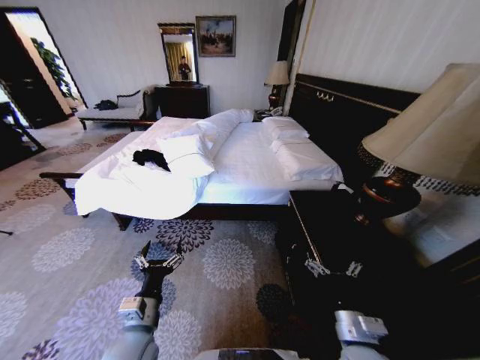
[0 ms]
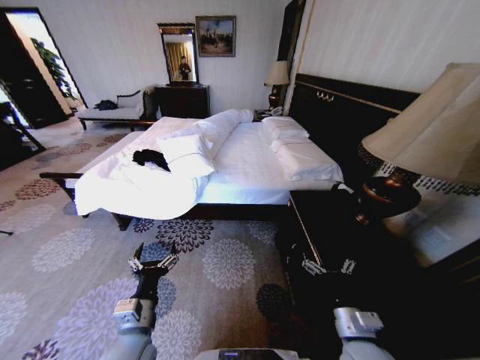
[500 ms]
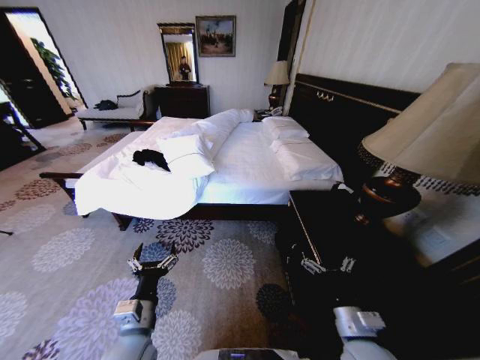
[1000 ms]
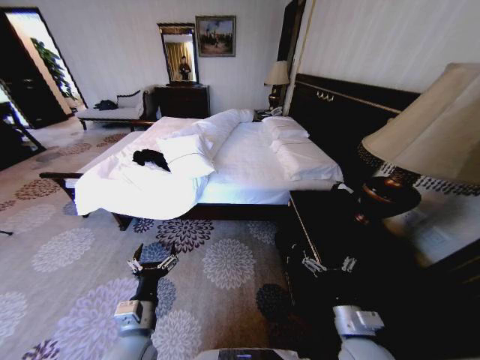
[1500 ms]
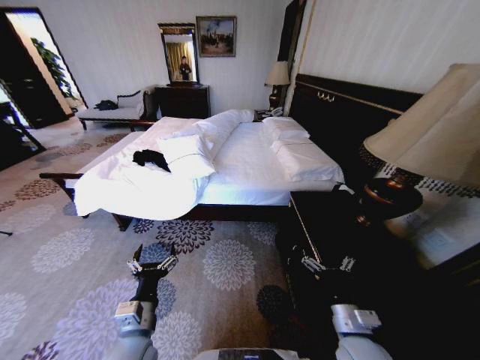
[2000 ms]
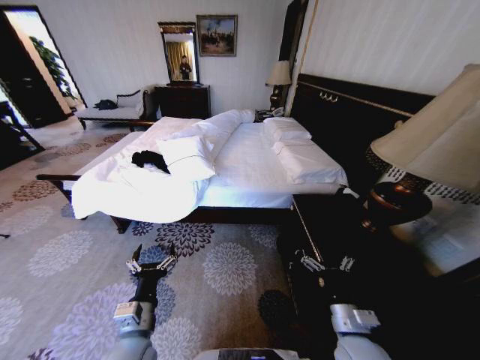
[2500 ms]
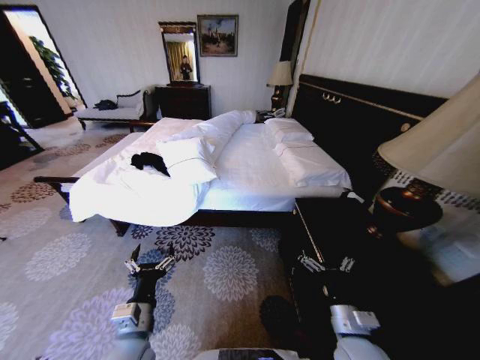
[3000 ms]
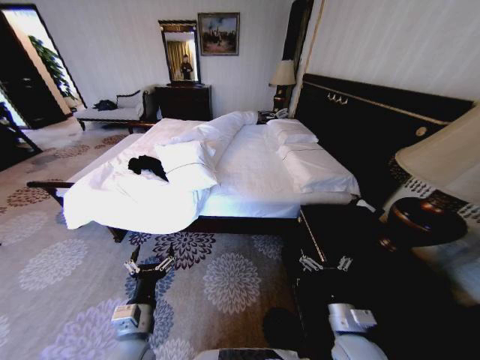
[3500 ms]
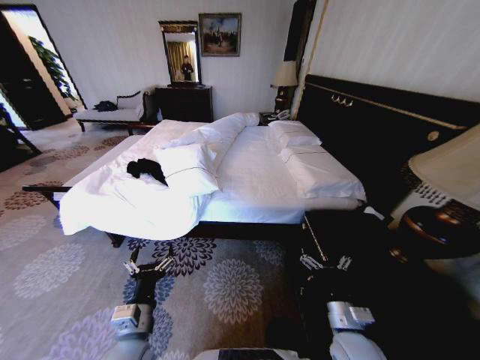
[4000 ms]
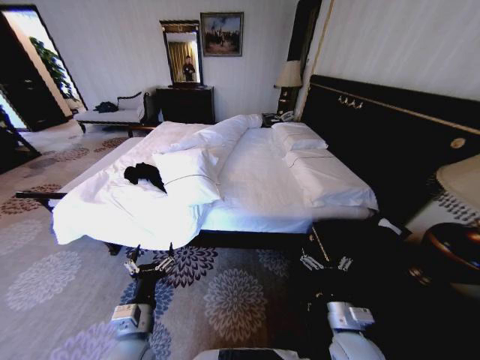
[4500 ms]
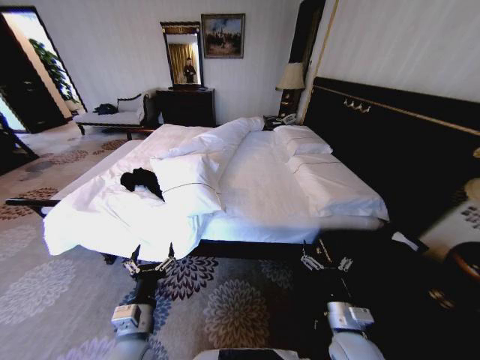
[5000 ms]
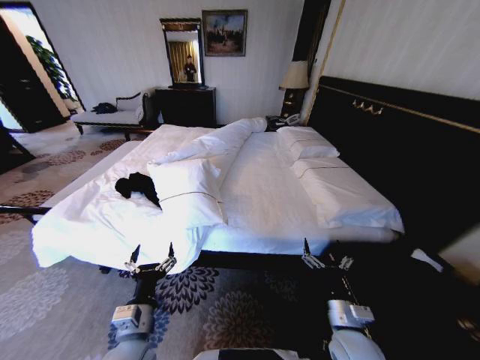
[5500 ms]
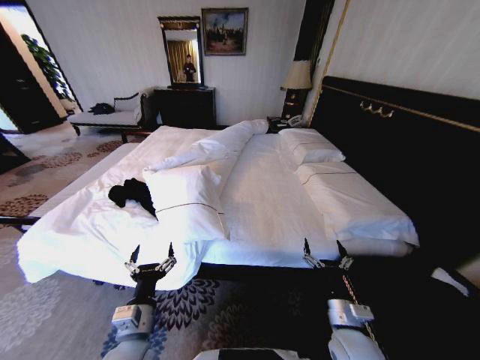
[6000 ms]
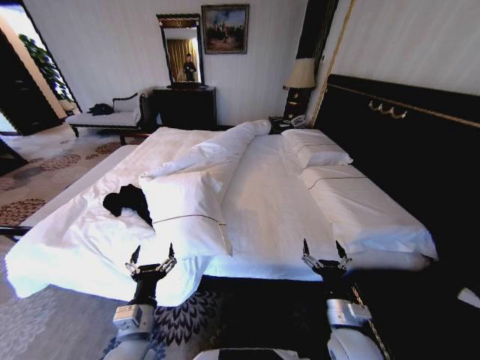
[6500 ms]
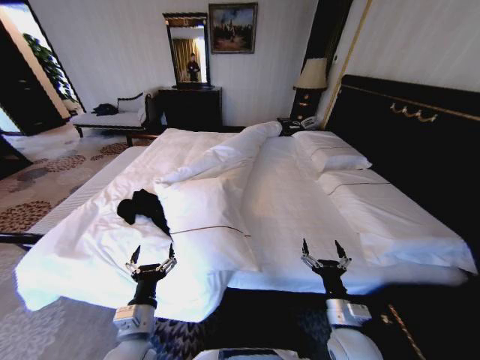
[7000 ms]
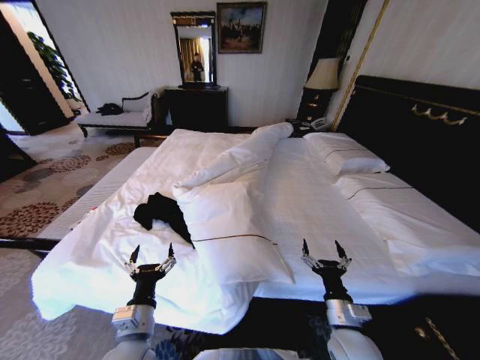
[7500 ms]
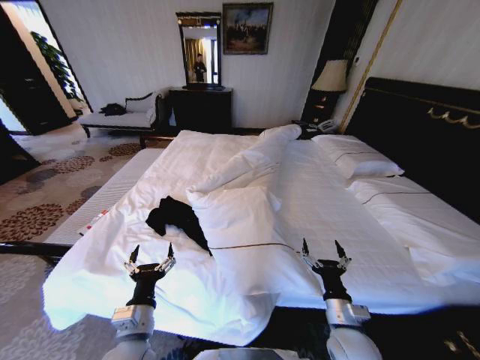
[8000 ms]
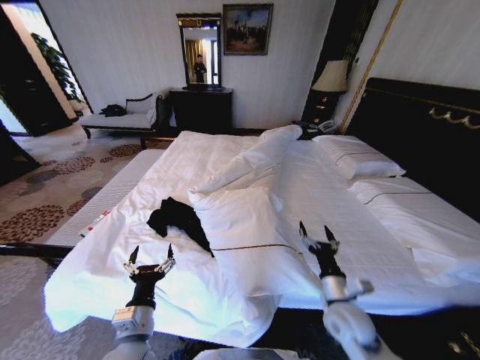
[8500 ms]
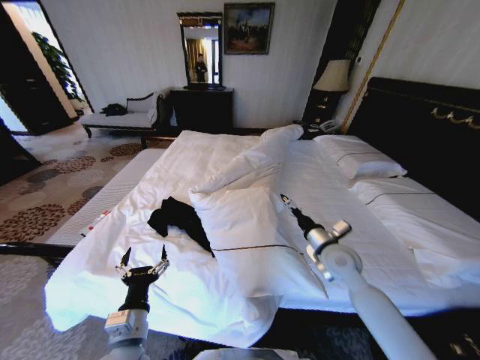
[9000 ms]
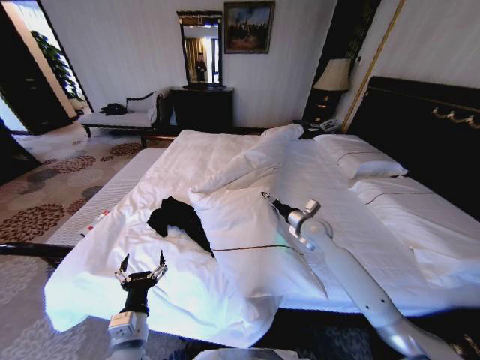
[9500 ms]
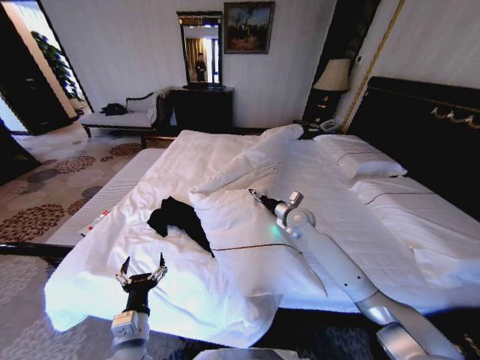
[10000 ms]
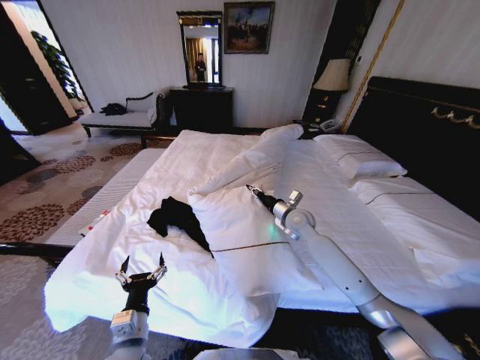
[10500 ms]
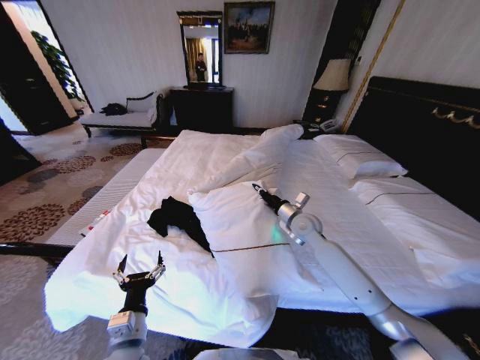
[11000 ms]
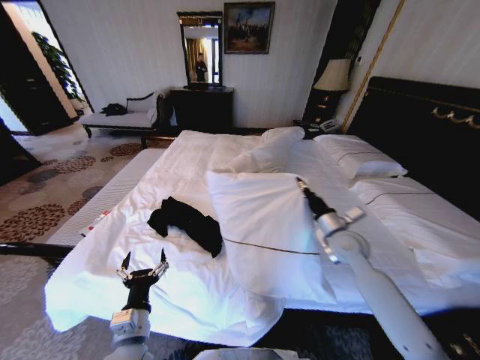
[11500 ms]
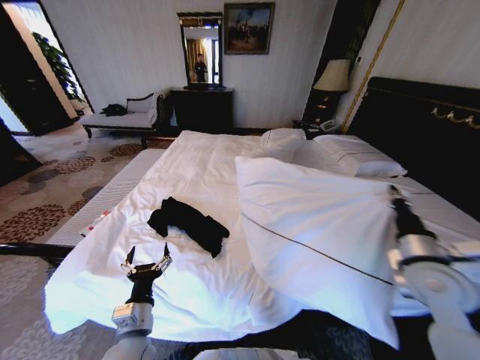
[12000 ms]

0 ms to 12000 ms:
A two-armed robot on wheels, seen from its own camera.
Task of the whole recording: Fold the clothes on the bed.
8000 ms to 10000 ms: The right gripper travels forward by some 30 cm.
10000 ms to 12000 ms: The right gripper travels backward and to the right by some 30 cm, and closes.

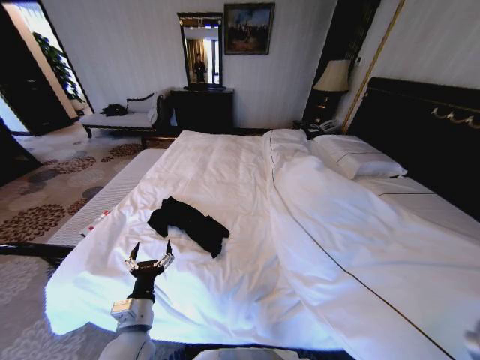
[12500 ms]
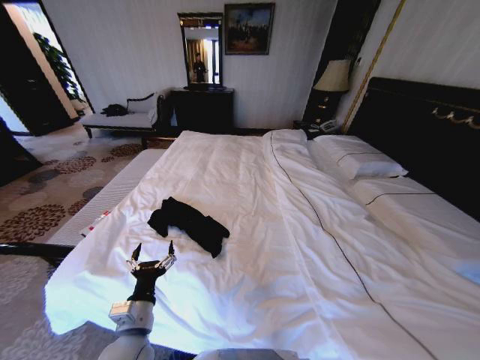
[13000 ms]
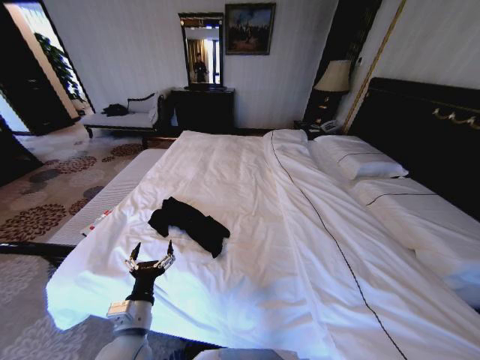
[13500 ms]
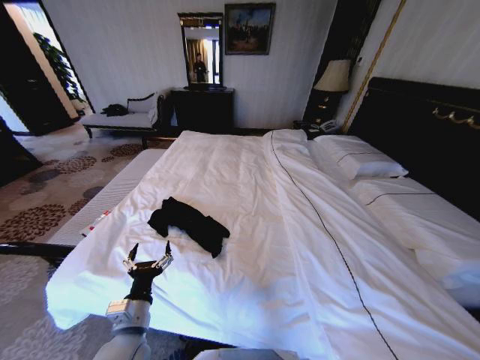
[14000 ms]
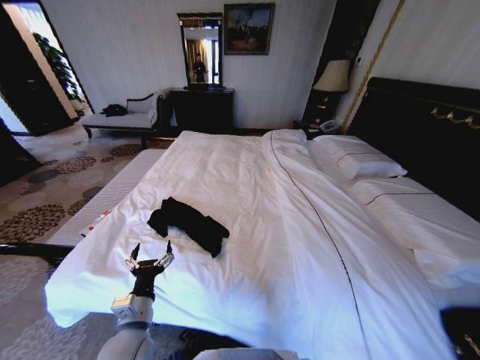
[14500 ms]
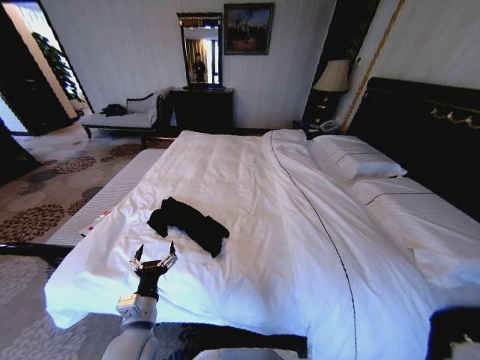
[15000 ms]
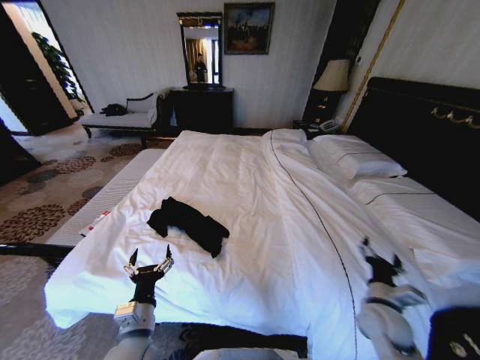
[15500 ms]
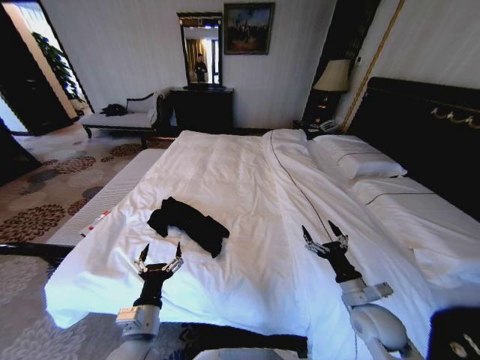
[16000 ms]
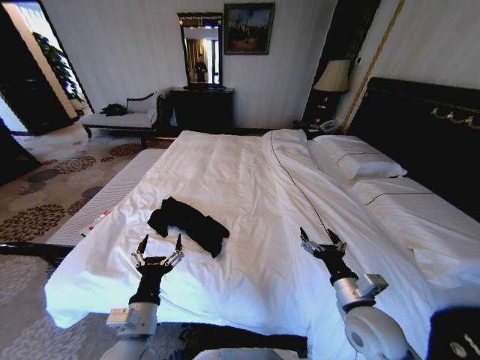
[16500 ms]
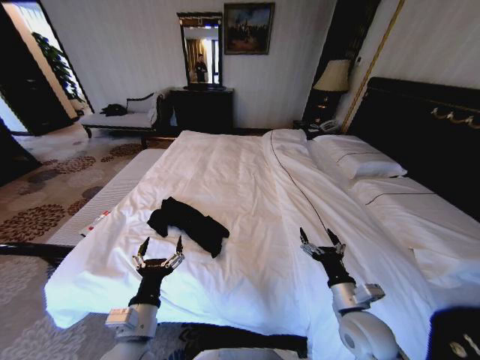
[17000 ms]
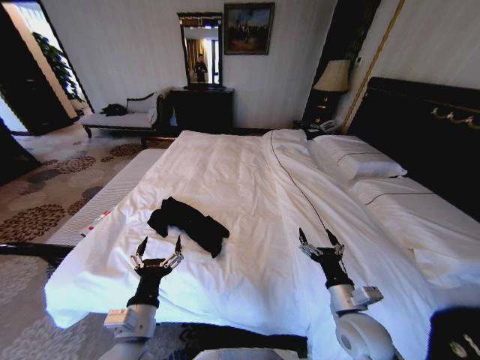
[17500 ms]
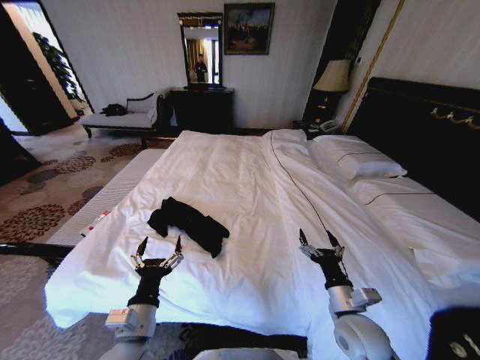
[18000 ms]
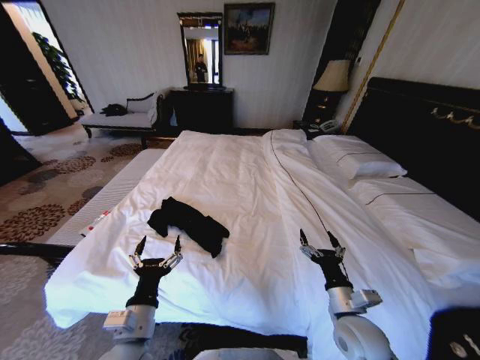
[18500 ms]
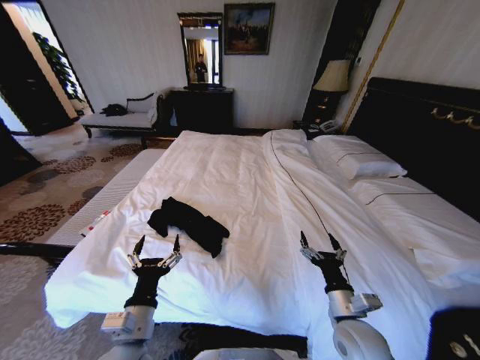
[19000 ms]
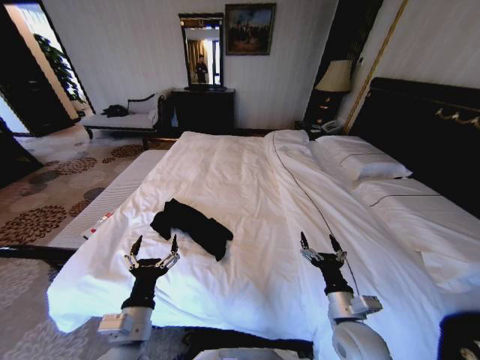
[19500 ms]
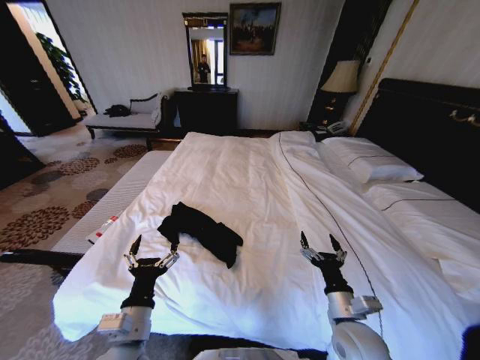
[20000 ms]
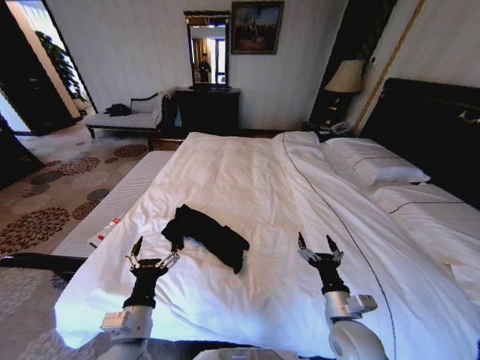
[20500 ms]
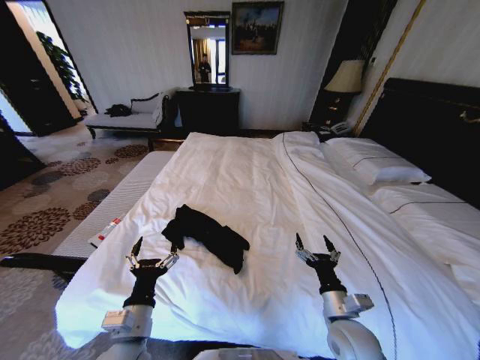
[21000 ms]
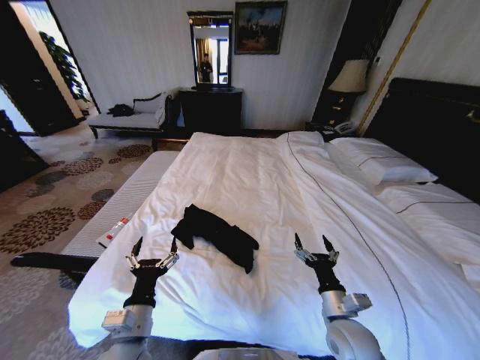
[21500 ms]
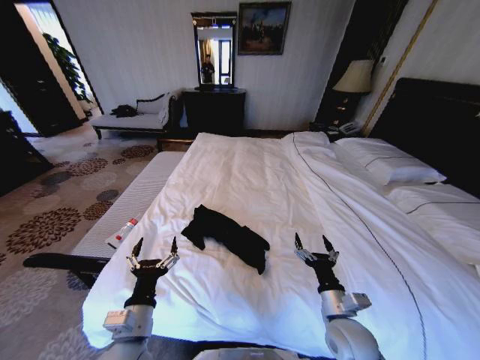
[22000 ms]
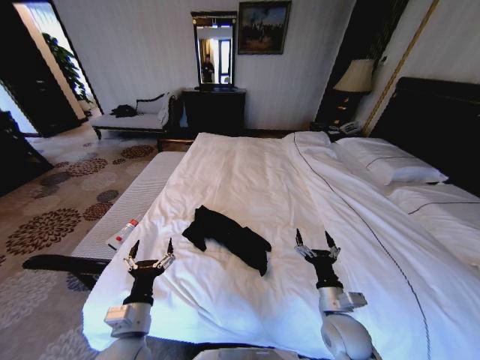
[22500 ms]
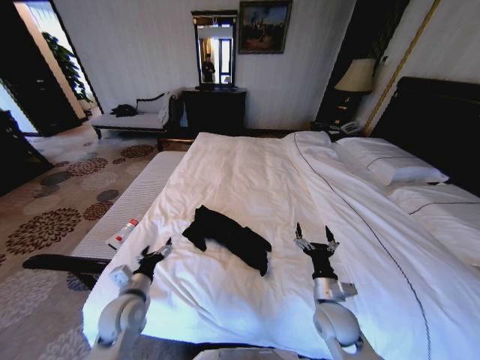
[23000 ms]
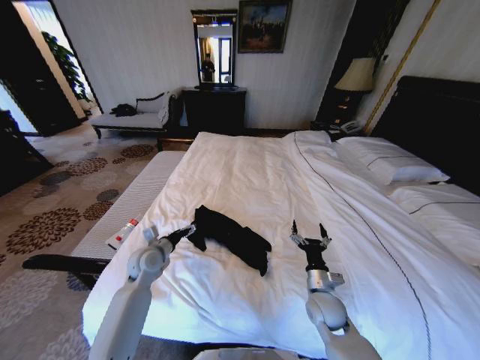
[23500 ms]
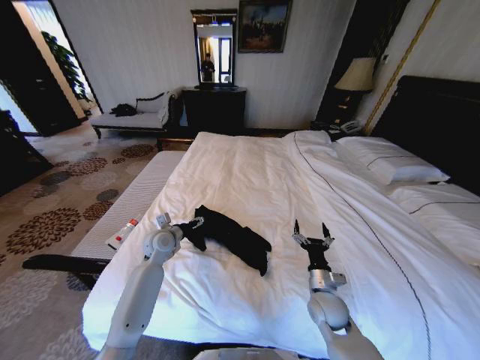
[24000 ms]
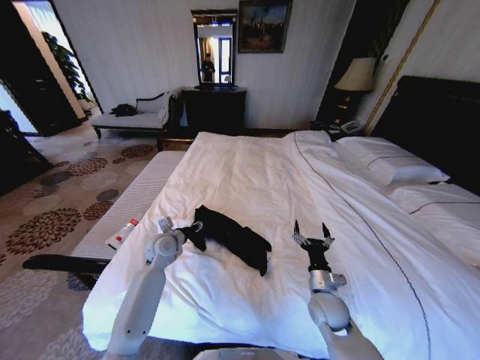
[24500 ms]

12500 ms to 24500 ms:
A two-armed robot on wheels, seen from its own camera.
Task of the whole recording: Fold the clothes on the bed.
12500 ms to 14500 ms: The right gripper is displaced downward and to the right by approximately 15 cm, and opens.
14500 ms to 16500 ms: The right gripper travels to the left and forward by some 25 cm.
16500 ms to 18500 ms: The grippers make only small movements.
22500 ms to 24500 ms: The left gripper heads forward, covering approximately 25 cm, and closes; the right gripper is displaced forward by roughly 5 cm.

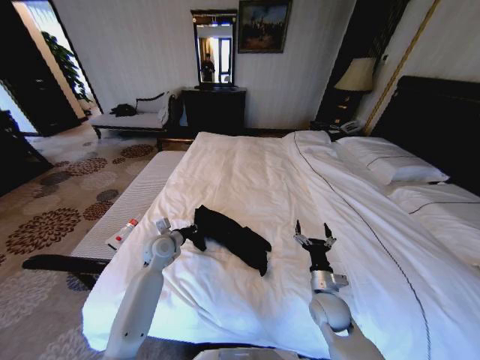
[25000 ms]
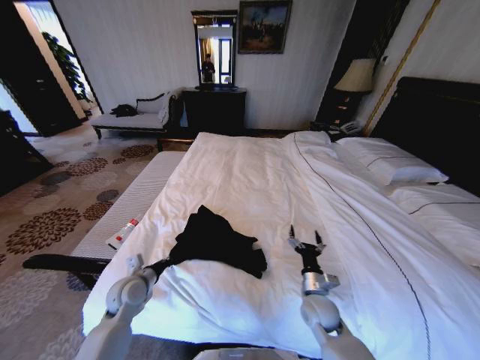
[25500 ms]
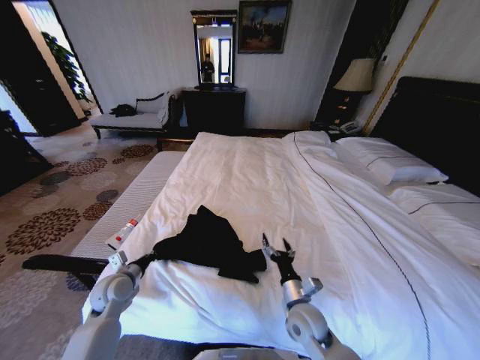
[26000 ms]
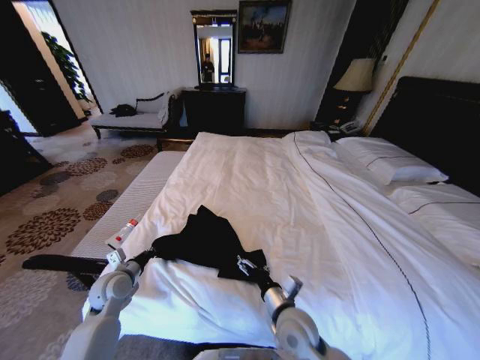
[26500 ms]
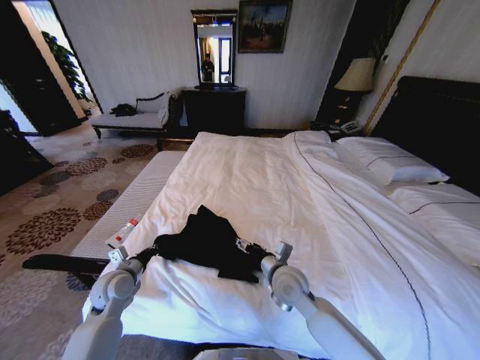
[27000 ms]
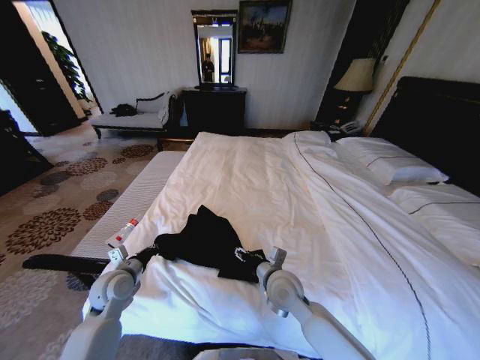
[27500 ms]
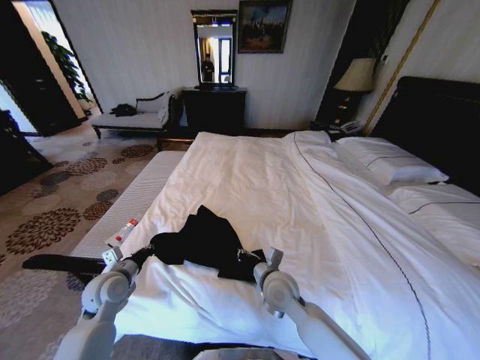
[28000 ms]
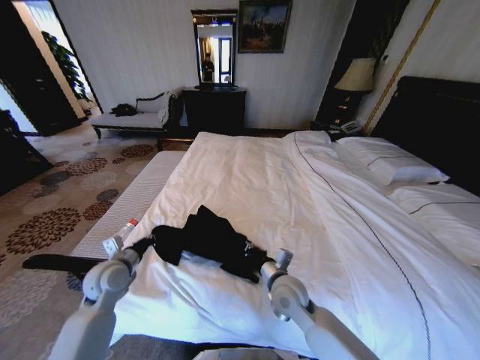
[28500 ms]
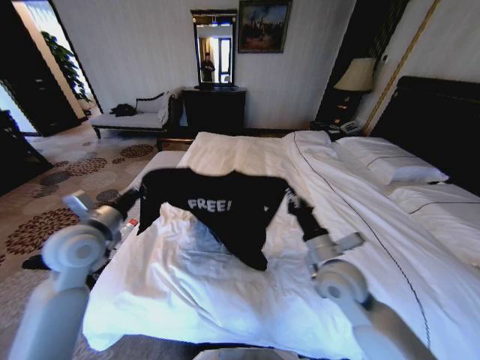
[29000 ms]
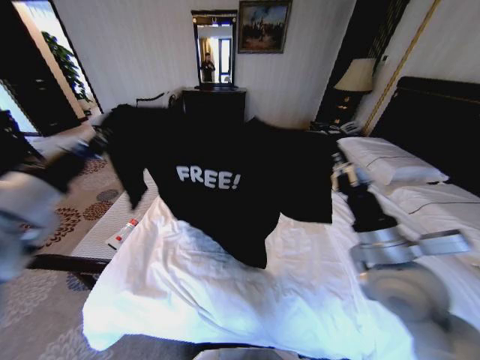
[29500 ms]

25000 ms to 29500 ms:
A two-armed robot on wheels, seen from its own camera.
Task of the whole recording: Fold the clothes on the bed.
25000 ms to 27000 ms: The left gripper moves backward and to the left, roughly 15 cm, while the right gripper travels to the left and upward by about 15 cm.
27000 ms to 29500 ms: The left gripper goes some 30 cm upward, while the right gripper is displaced upward and to the right by approximately 20 cm, and closes.
